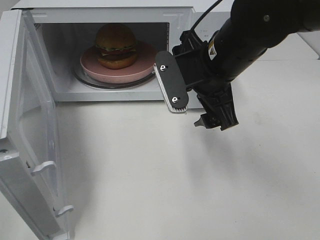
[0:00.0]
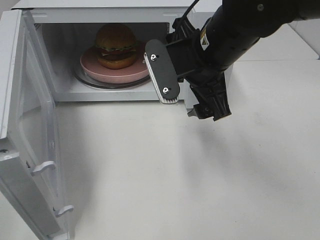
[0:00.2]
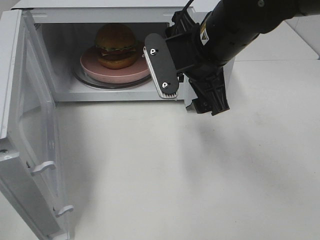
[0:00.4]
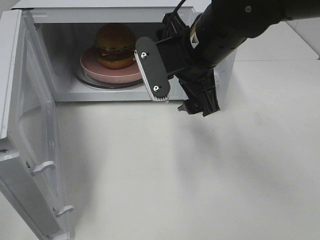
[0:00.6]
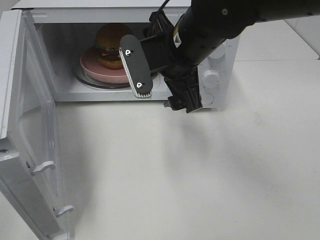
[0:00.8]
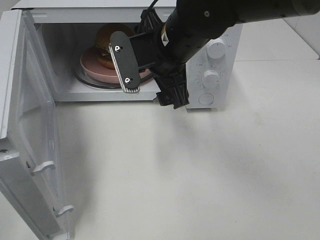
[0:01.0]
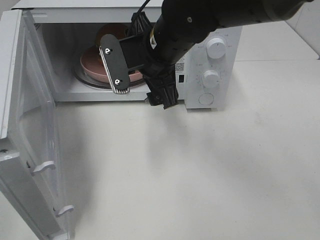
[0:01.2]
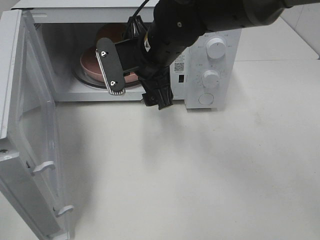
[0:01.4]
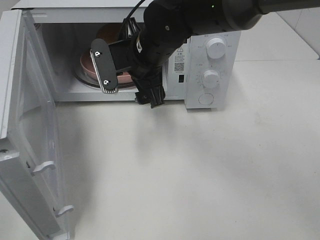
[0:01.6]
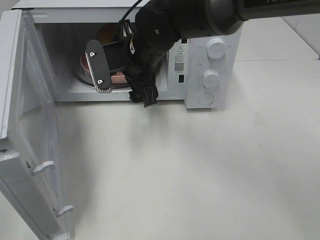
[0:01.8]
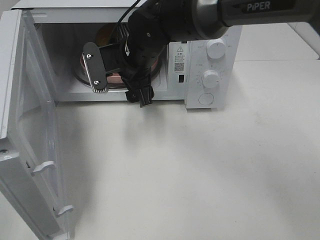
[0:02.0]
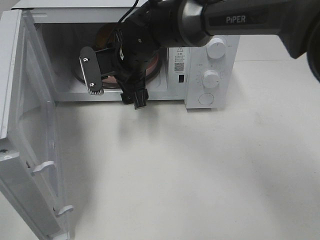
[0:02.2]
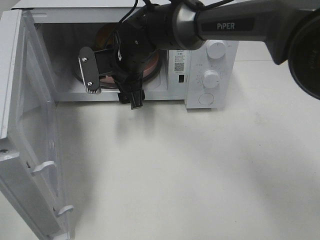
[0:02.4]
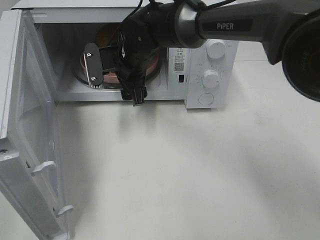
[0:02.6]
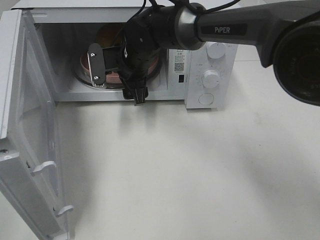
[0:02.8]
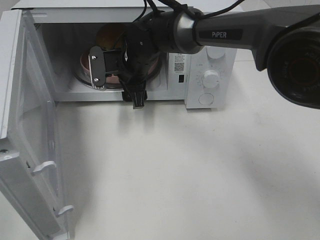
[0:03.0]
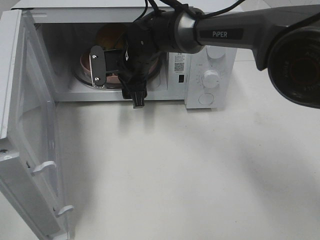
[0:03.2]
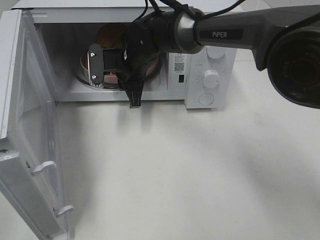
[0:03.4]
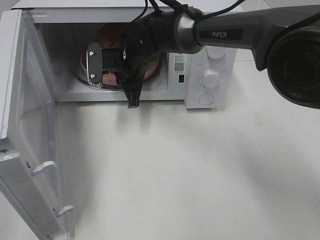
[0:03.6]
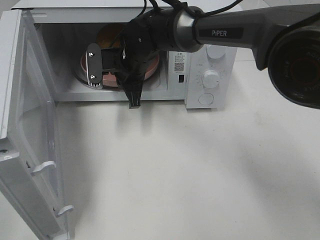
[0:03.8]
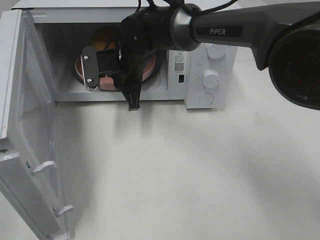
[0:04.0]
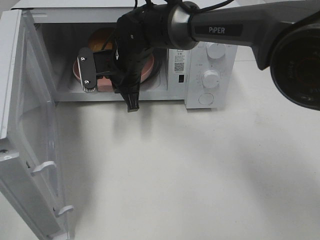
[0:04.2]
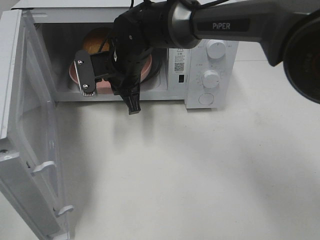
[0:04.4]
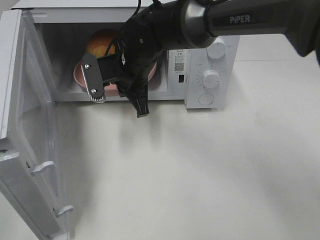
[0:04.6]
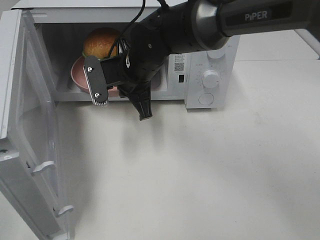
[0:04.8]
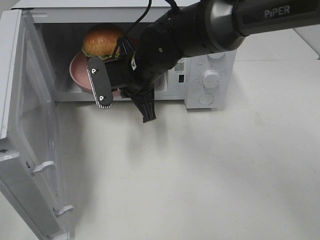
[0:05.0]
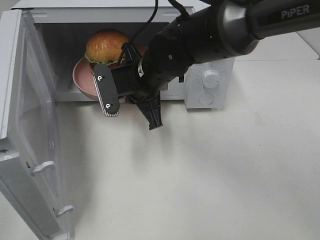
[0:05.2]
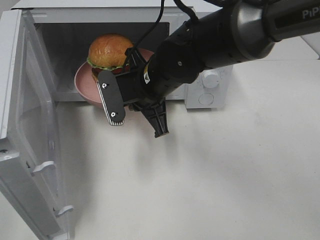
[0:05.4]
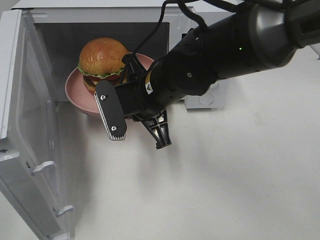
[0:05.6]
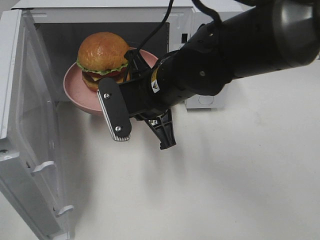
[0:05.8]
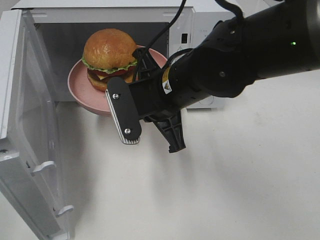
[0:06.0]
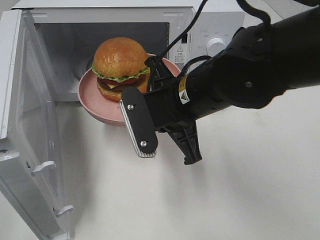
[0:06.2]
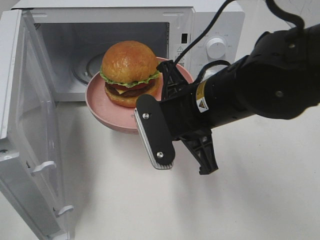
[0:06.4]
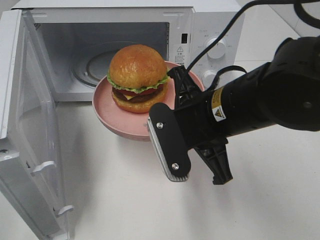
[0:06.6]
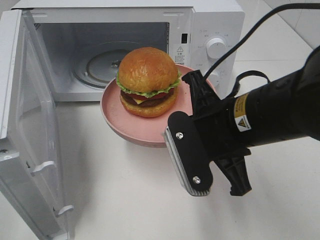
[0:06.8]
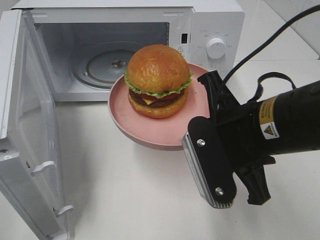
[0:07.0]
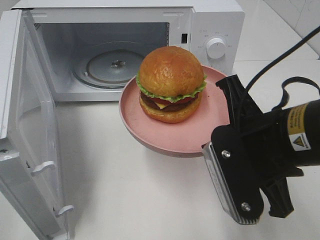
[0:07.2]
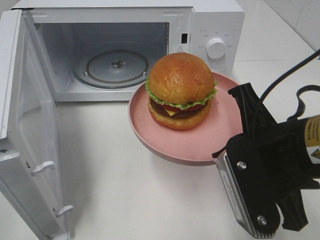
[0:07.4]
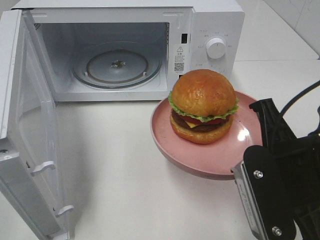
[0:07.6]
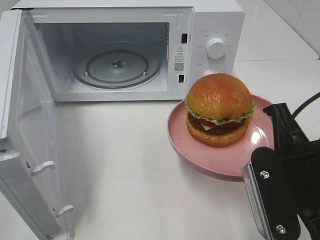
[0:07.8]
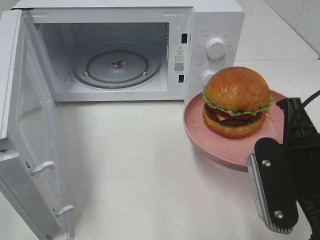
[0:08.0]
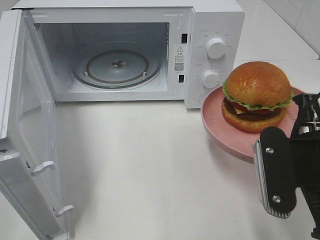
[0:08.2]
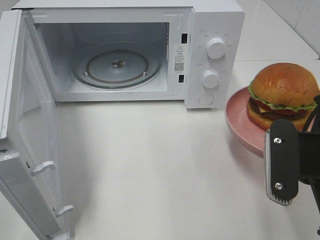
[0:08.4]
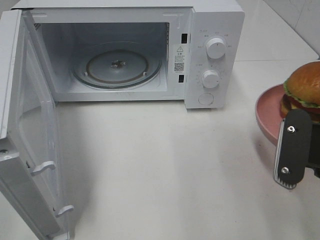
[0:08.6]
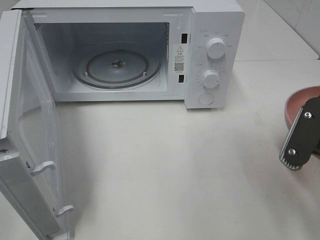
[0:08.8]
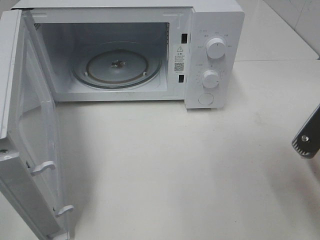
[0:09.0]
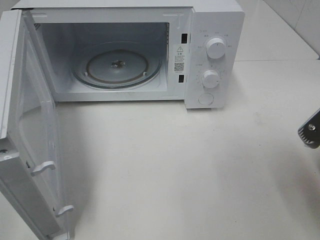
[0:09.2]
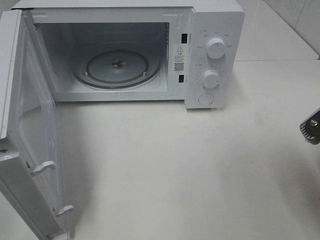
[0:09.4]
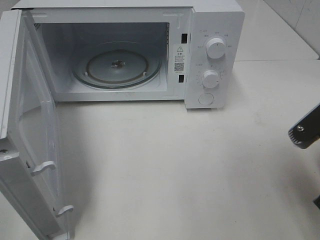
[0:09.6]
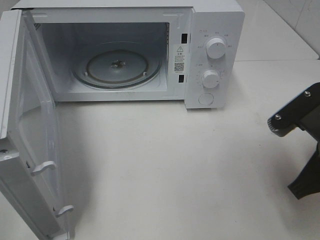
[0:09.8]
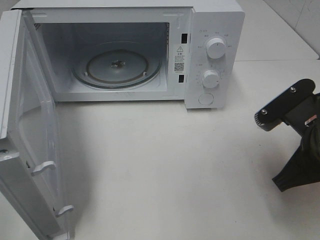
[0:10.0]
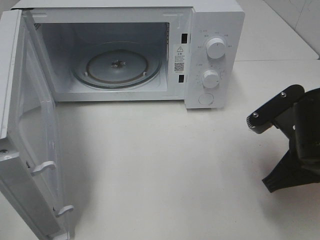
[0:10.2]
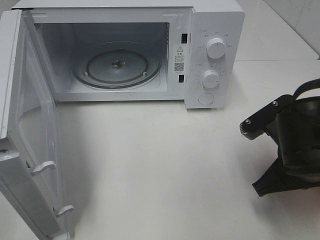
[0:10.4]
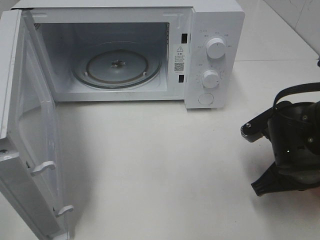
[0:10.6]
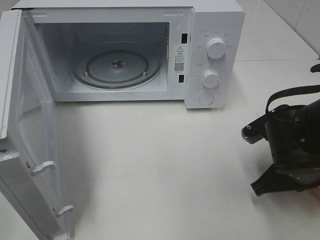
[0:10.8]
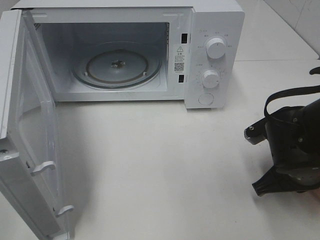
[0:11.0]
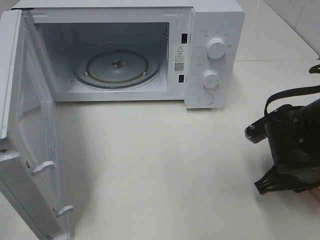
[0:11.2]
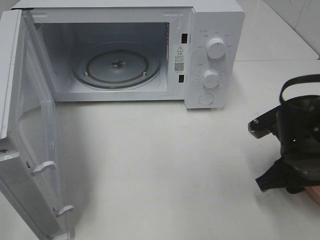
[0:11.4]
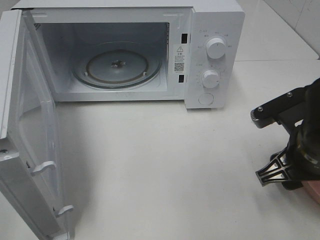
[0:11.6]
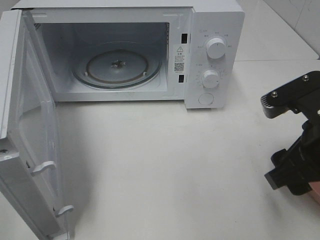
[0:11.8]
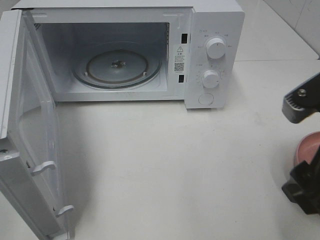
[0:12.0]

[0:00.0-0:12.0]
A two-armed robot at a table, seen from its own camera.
Task of the whole recording: Heat the burger.
Step, 0:00.0 to 0:03.6: Right hand: grab the plate with the hamburger.
Step, 0:03.8 to 0:11.2: Right hand: place the plate on the table.
0:00.0 to 0:01.6: The right gripper travels to the left and forward by some 10 cm.
0:01.6 to 0:03.0: The right gripper travels forward and downward by about 10 cm.
0:03.0 to 0:04.4: The right gripper closes its fingers.
0:04.4 to 0:06.0: The right gripper is displaced backward and to the right by approximately 15 cm.
0:06.0 to 0:07.6: The right gripper heads to the right and backward, covering some 20 cm.
0:07.6 to 0:09.0: The right gripper moves to the right, approximately 5 cm.
0:09.0 to 0:10.4: The right gripper travels downward and forward by roughly 10 cm.
0:10.4 to 0:12.0: The right gripper heads upward and backward, covering some 10 cm, and opens up.

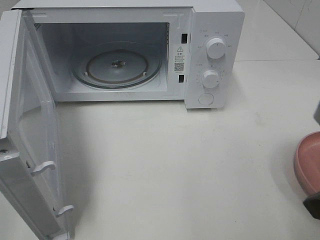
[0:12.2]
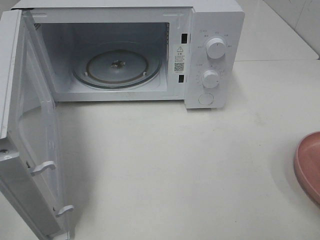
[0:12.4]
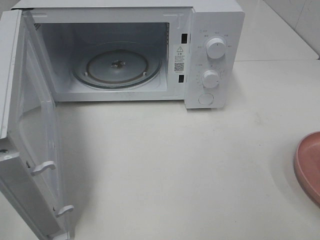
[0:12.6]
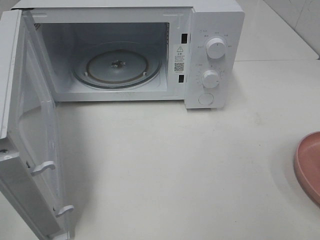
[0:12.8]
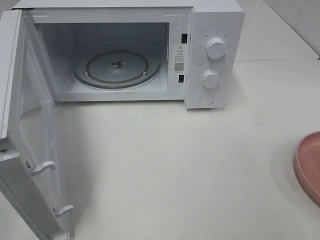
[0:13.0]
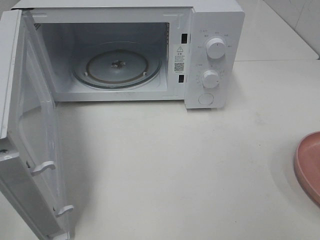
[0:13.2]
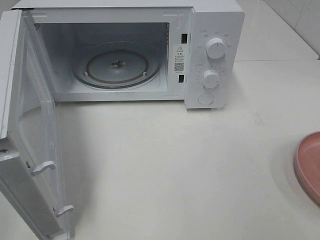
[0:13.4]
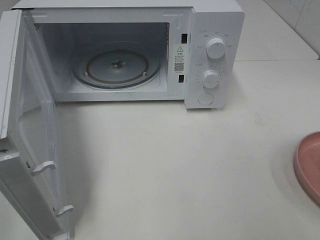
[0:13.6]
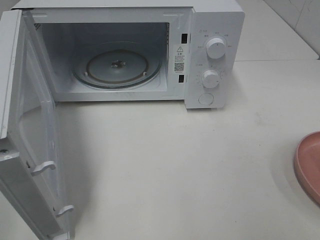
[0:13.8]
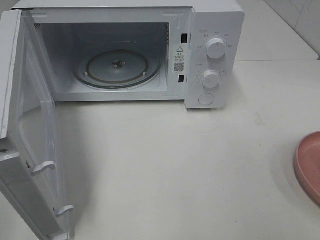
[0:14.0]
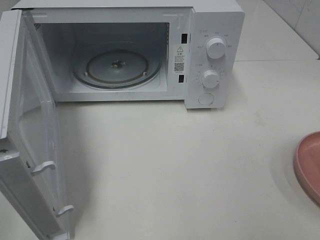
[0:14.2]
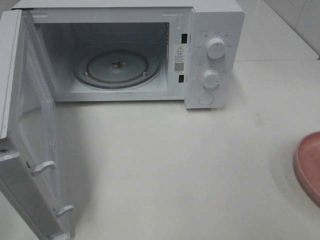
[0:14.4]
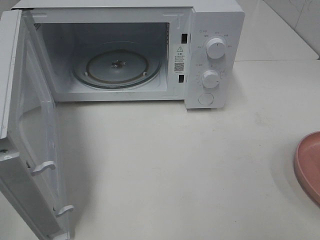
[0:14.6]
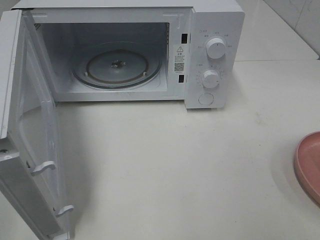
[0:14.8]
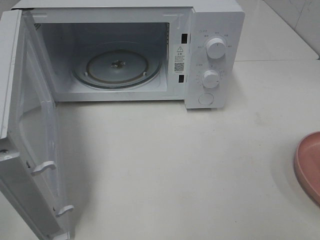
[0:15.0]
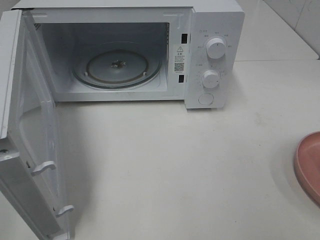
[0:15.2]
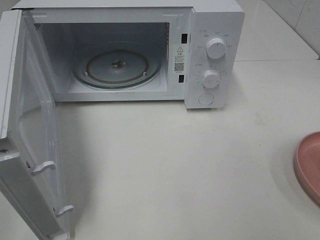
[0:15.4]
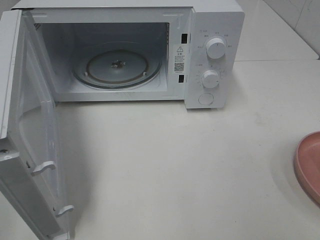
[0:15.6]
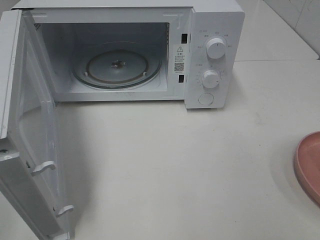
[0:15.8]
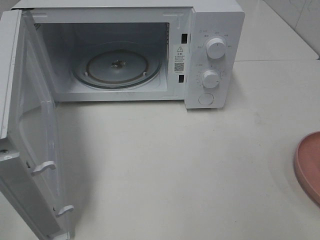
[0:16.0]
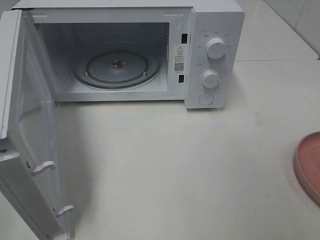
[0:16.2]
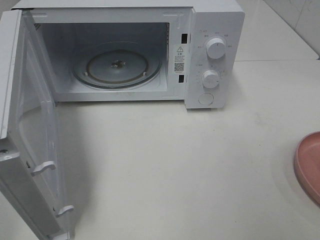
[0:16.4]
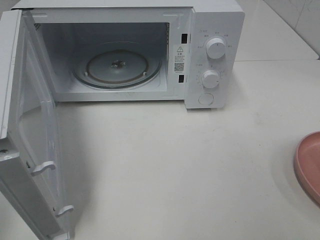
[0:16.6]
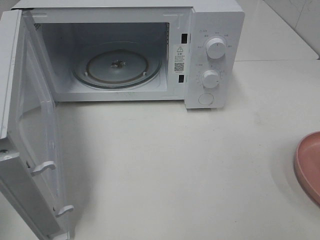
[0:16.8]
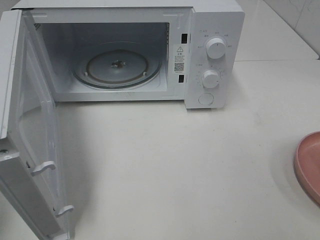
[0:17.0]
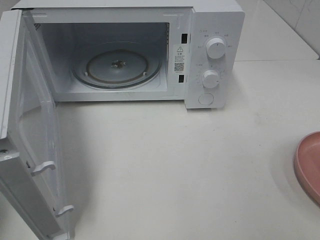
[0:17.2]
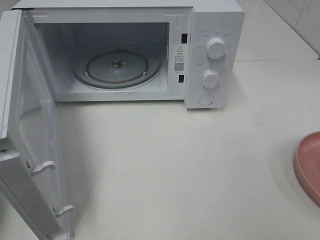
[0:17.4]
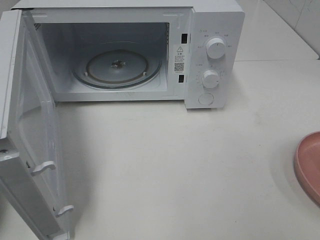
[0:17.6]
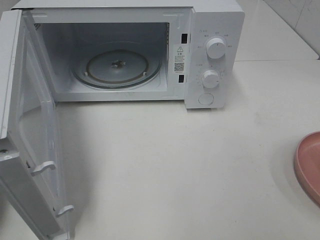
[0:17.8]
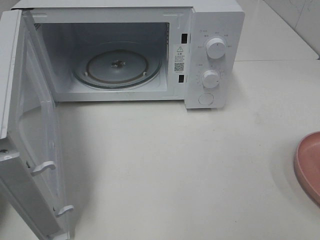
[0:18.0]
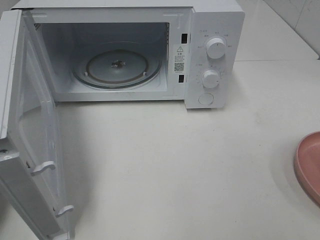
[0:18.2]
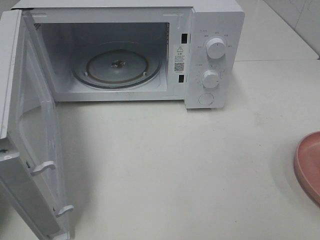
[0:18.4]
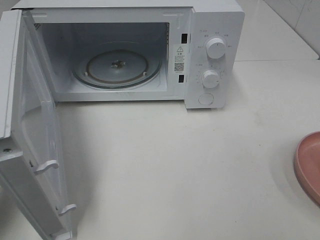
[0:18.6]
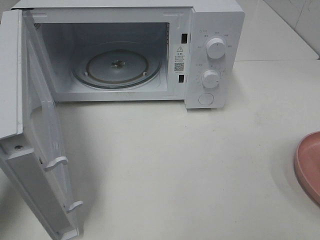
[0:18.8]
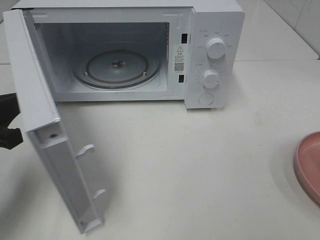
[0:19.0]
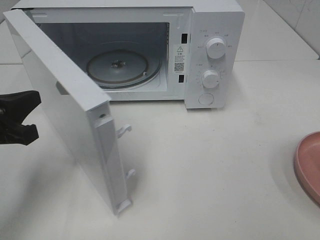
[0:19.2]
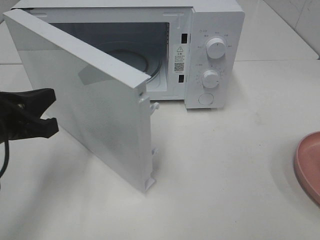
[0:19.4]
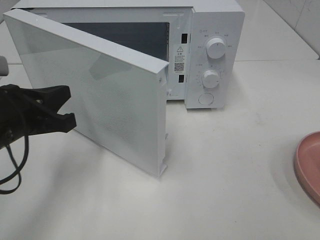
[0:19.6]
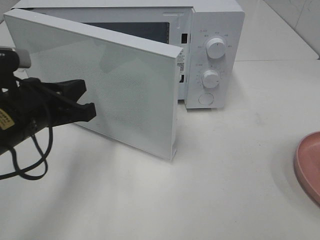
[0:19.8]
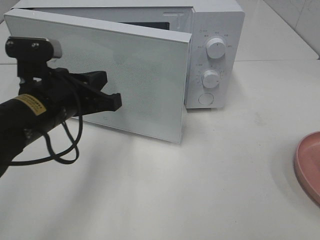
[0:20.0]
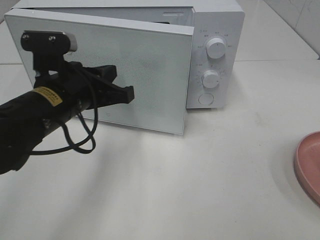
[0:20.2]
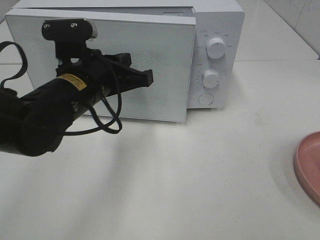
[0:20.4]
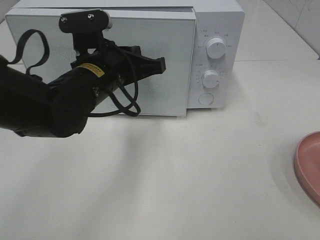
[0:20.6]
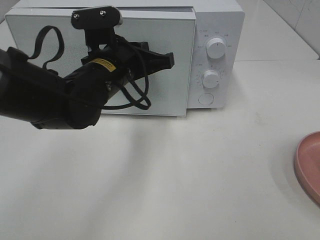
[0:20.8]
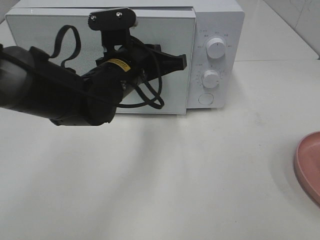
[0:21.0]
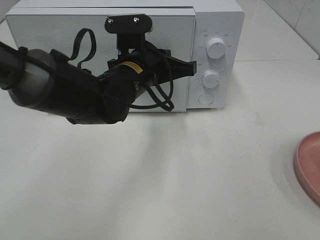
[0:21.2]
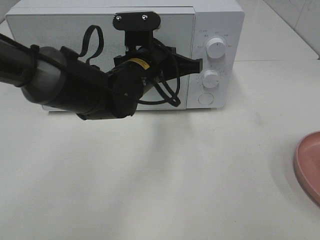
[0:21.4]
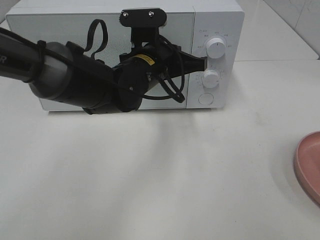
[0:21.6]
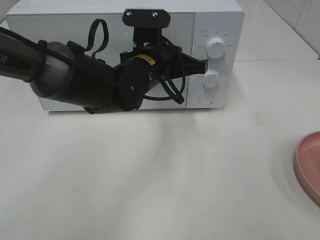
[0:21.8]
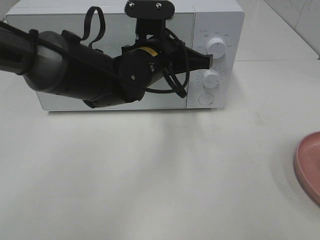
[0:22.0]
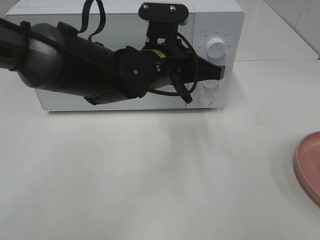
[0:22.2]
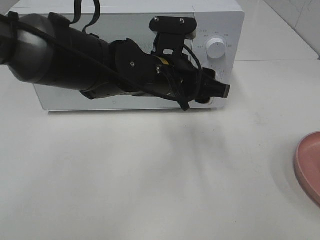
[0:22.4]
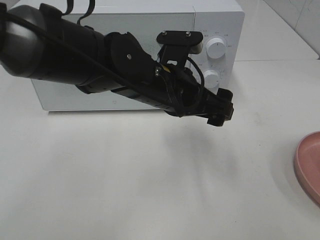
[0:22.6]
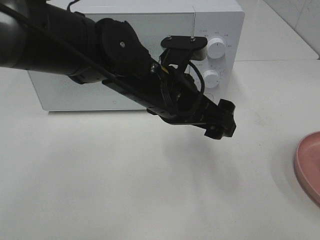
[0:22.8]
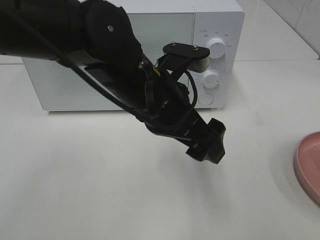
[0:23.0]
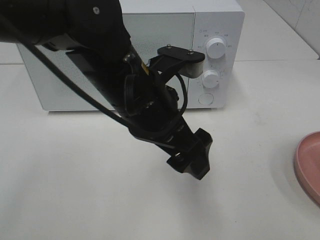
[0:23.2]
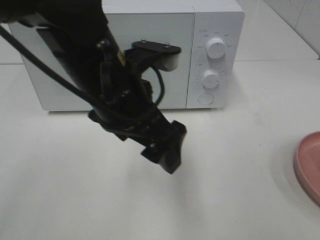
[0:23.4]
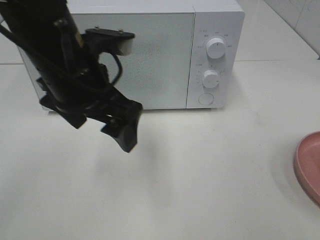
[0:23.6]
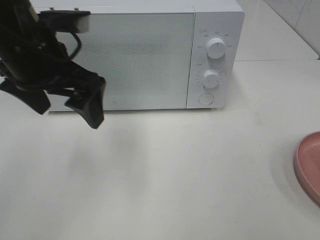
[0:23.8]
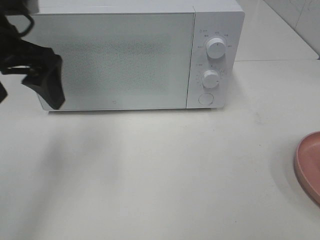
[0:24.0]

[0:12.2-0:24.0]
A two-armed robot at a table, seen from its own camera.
Task of the whole recording: Heat the burger.
Step, 0:12.2 to 0:22.0: Left hand: close the microwave door.
0:12.2 to 0:13.6: The right gripper shifts about 15 cm backward and to the right.
0:13.6 to 0:15.2: Both grippers stay about where they are.
0:18.2 to 0:19.6: The left gripper goes about 10 cm to the right.
0:19.6 to 0:21.0: The left gripper is displaced to the right and forward by about 20 cm.
0:21.0 to 0:22.6: The left gripper moves to the right, about 5 cm, and opens its fingers.
0:22.6 to 0:24.0: The left gripper moves to the left and upward, about 25 cm.
